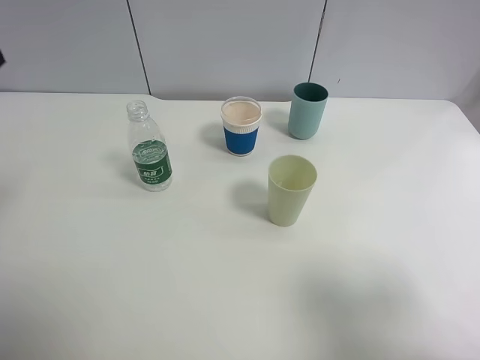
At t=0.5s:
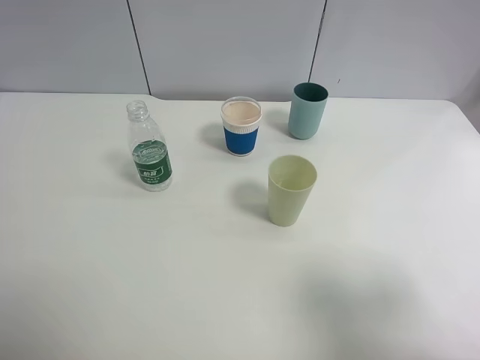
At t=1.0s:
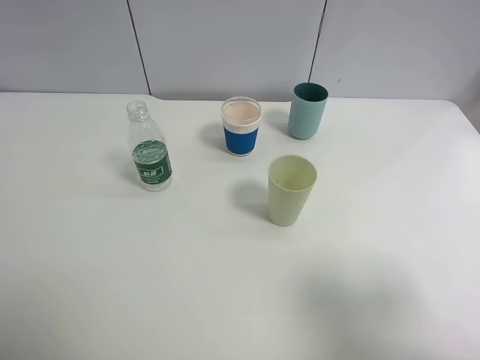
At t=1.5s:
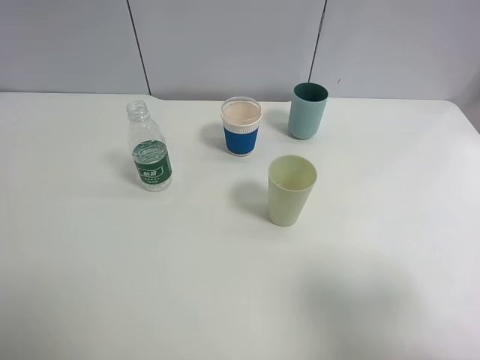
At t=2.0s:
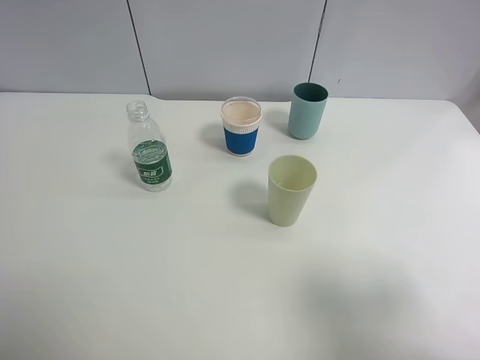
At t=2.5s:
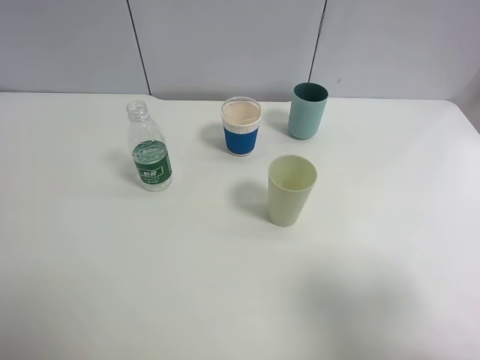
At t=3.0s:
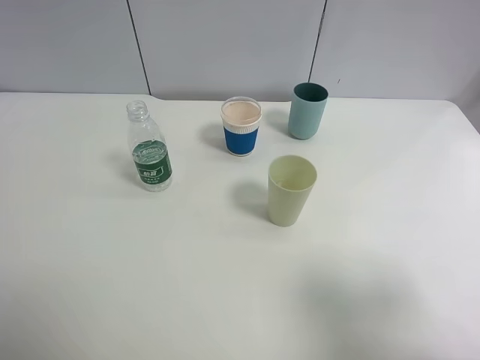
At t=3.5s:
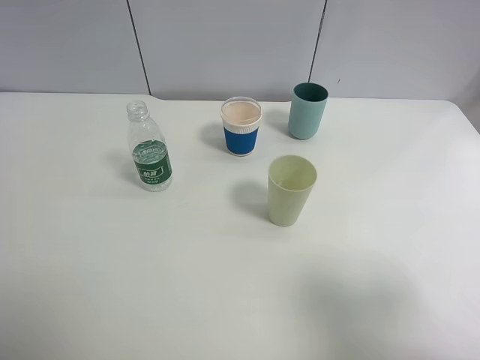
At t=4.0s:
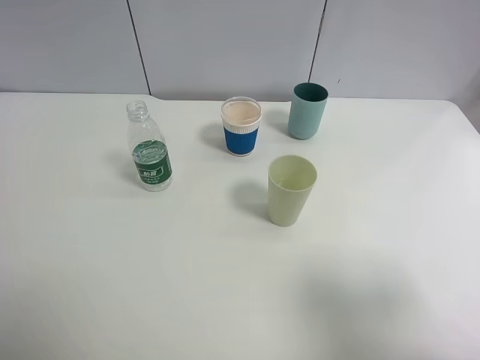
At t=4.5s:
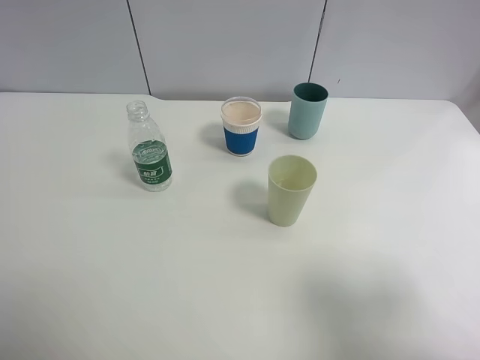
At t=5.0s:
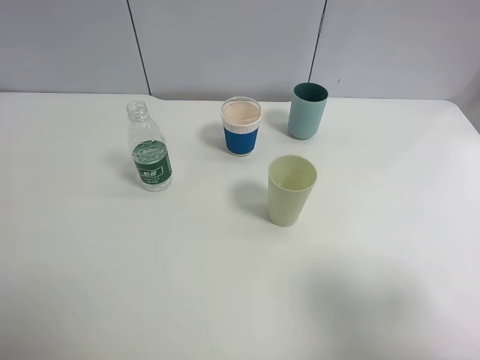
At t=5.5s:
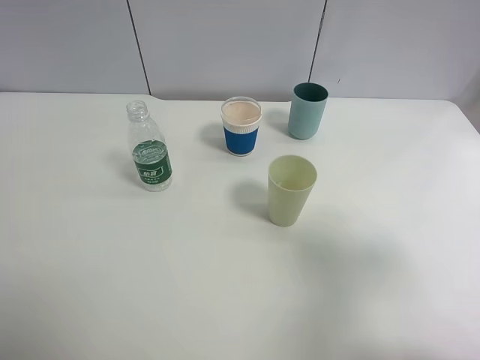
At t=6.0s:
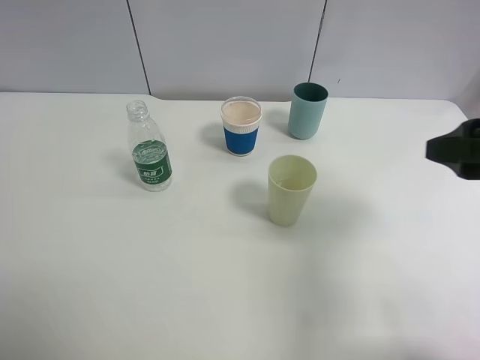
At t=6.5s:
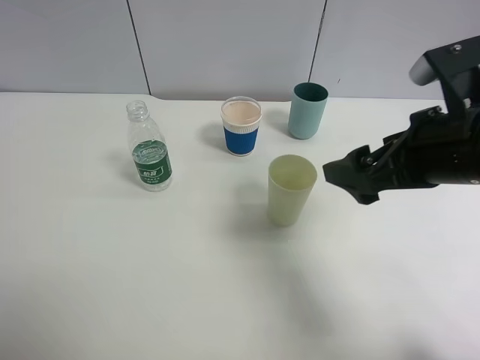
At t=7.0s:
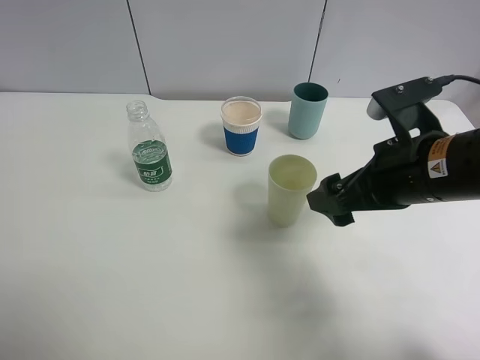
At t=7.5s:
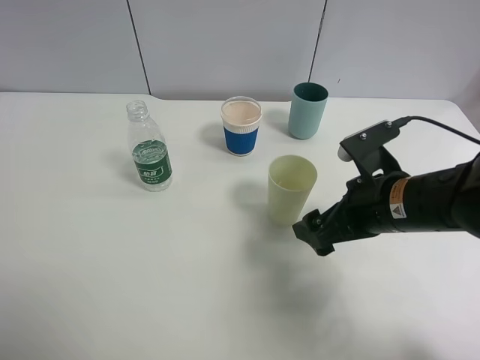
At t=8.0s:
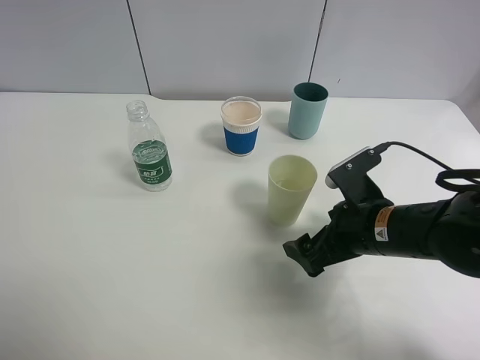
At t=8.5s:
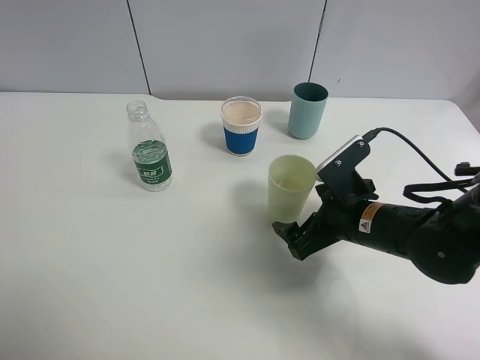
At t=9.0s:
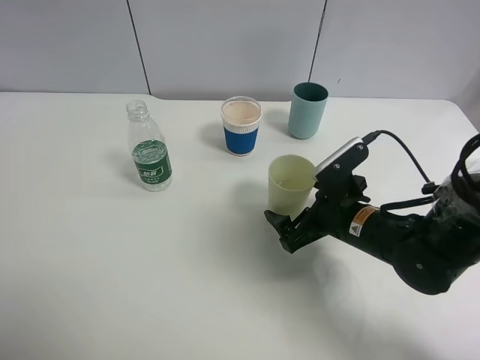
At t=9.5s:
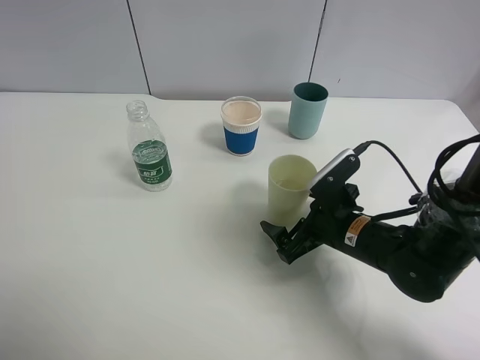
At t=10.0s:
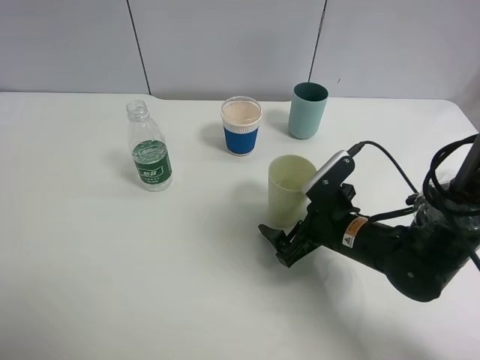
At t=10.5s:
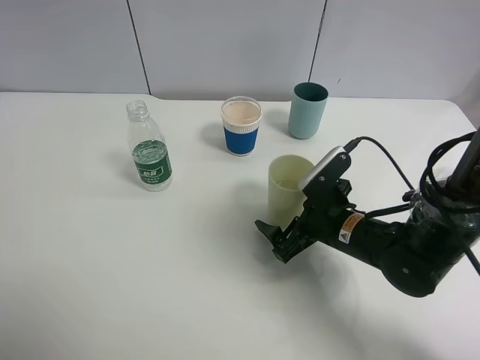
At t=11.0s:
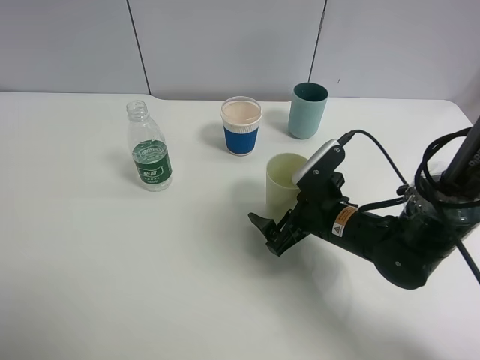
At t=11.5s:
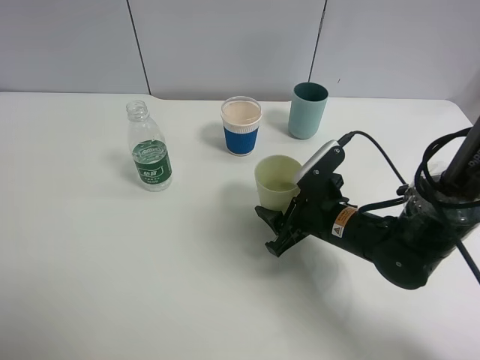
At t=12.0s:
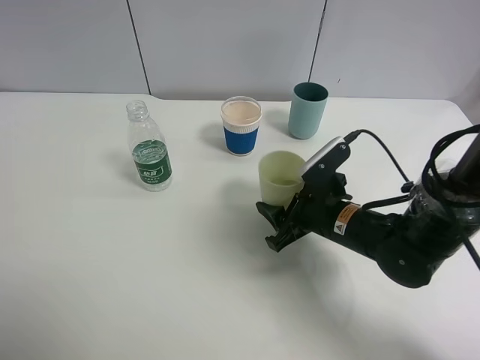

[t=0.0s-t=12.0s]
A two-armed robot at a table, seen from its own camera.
Task of the whole recording: use a clamp to hold the bottle of the drink, pour the beverage into a random cup, then clamp the cup containing the drink and pour the drink into another random cup.
t=2.0s to t=4.0s: The two grippers keep their place.
t=4.0s to t=6.0s: The right gripper goes roughly 15 cm forward.
t=6.0s to t=8.0s: The right gripper goes some 20 cm downward and to the left.
t=8.0s to t=10.0s: The right gripper goes roughly 5 cm downward.
t=10.0s to t=12.0s: The right gripper closes.

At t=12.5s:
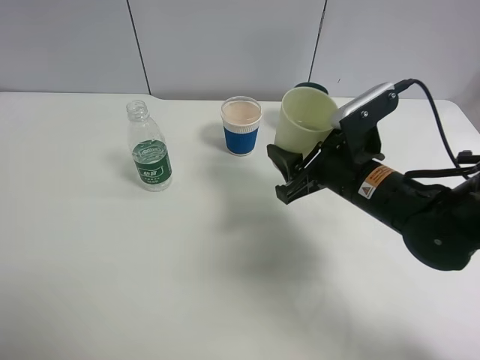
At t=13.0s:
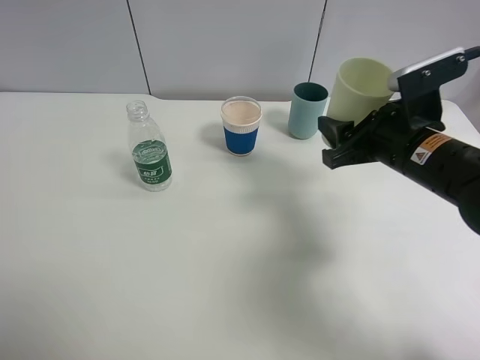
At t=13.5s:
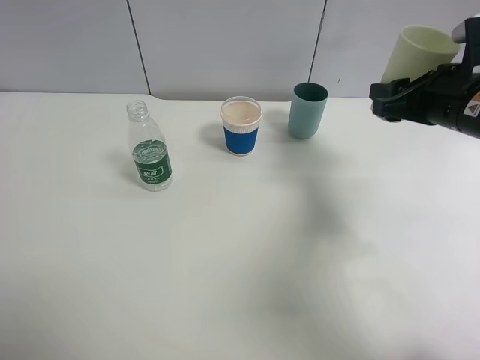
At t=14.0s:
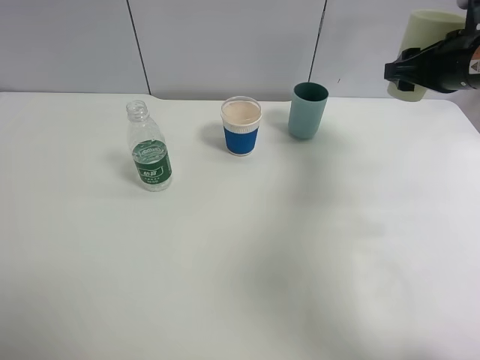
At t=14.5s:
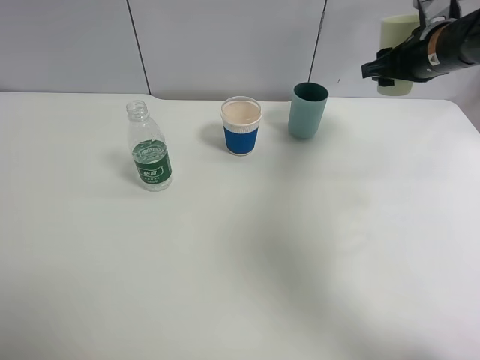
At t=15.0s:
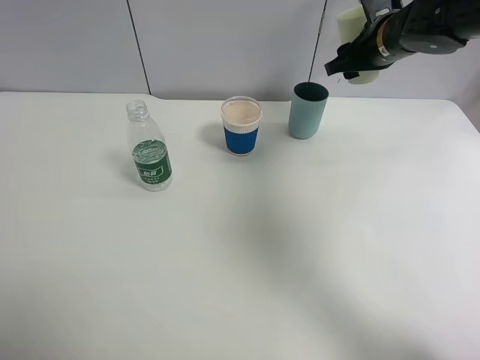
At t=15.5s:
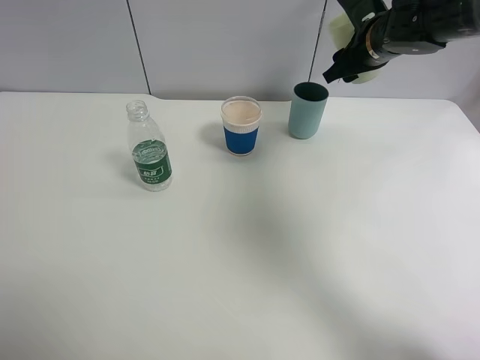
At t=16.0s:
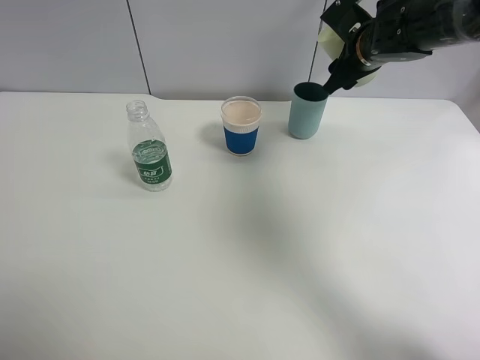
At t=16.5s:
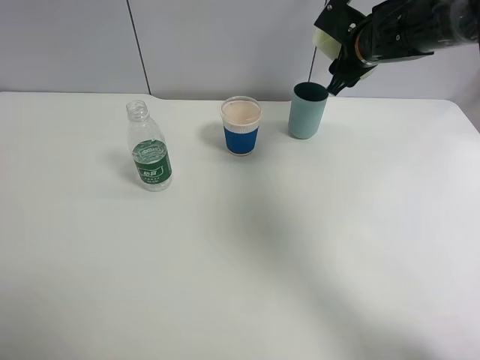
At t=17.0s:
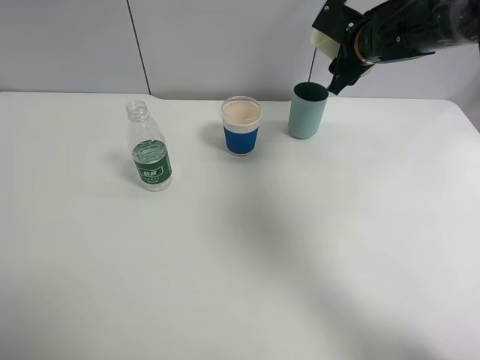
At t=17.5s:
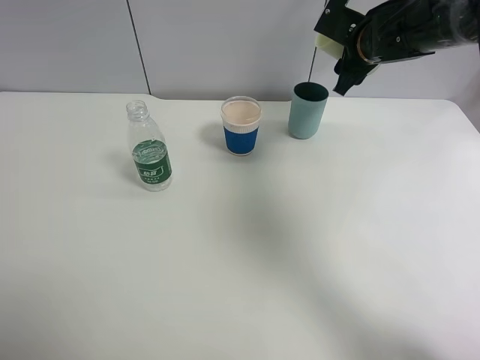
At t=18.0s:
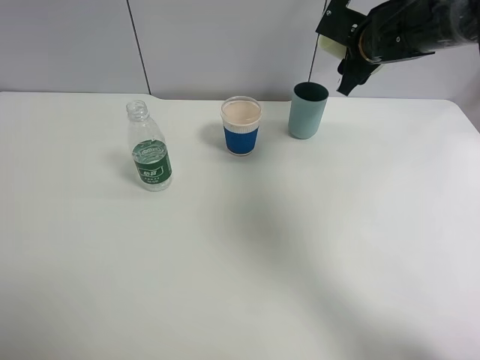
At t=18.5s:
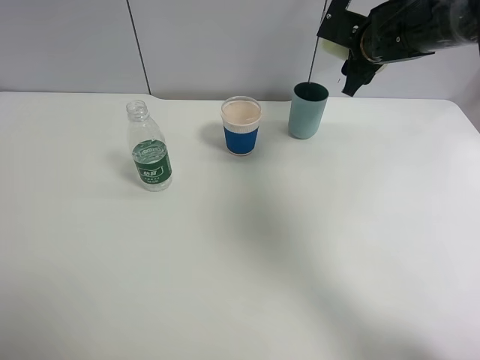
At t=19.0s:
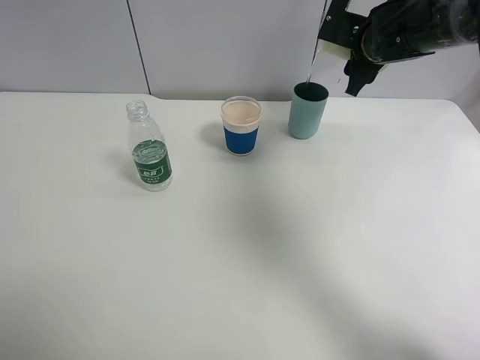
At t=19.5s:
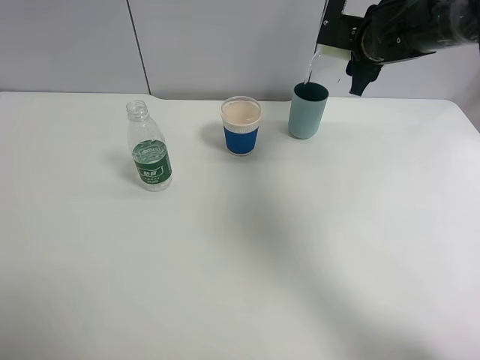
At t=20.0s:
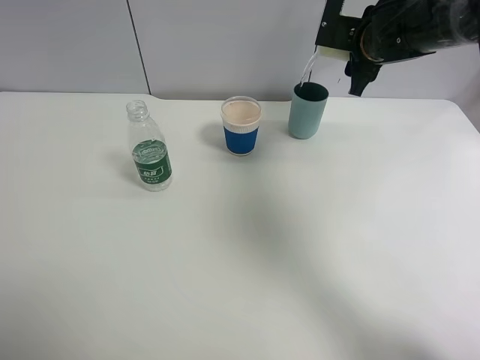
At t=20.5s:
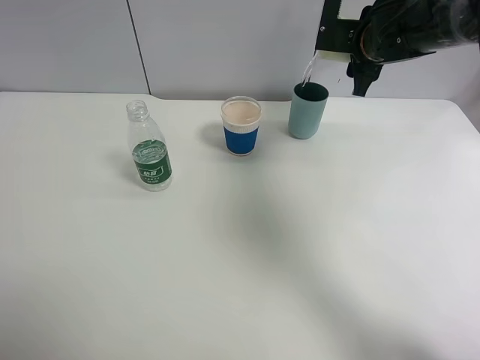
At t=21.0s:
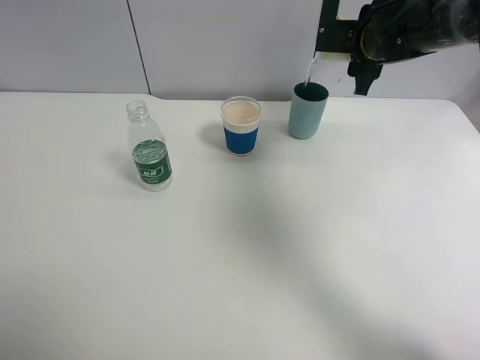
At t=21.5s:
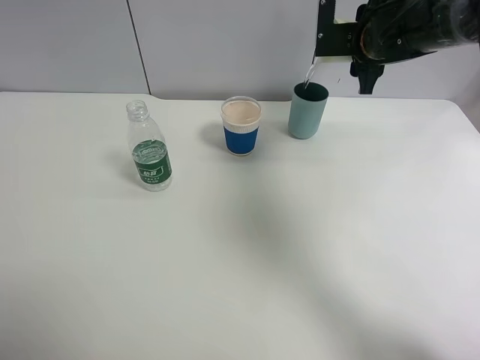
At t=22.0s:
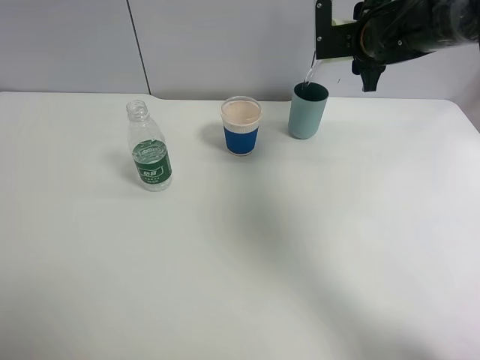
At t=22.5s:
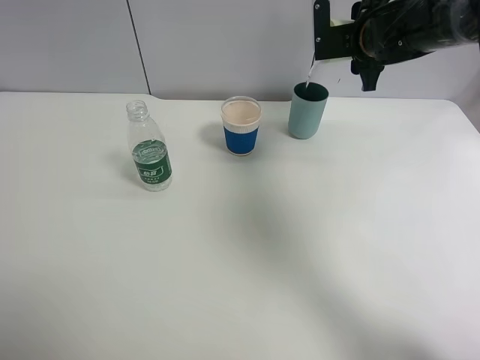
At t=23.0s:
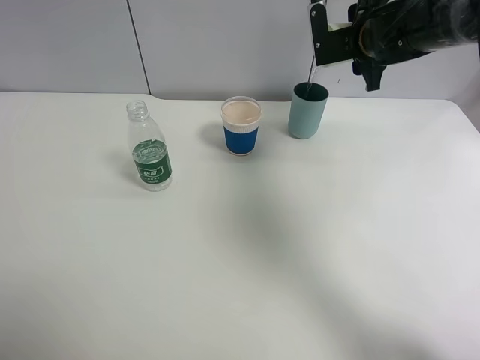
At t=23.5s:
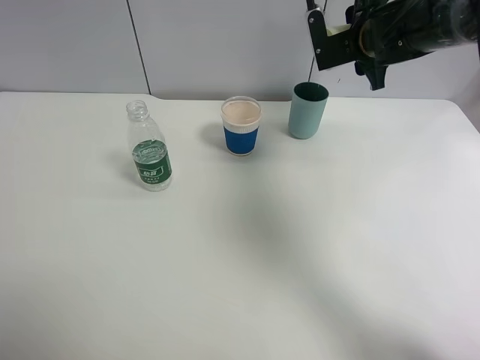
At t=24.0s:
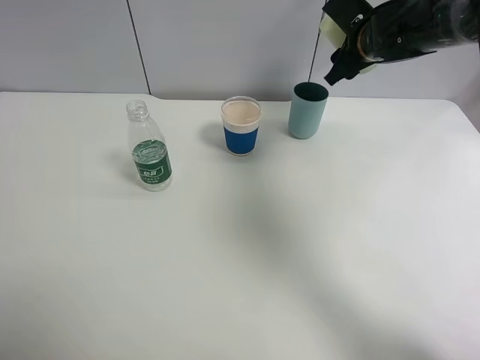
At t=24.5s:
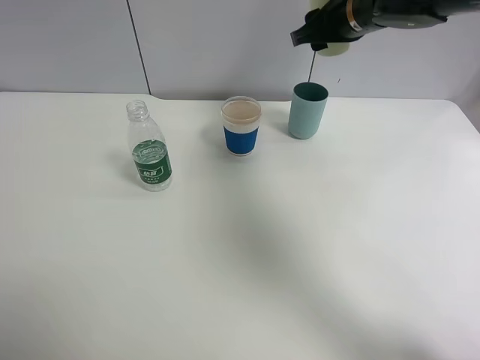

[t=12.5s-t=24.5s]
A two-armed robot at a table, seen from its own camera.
Task of the whole recording: use a clamp to hold the bottle of the drink, pour the beverage into a random cup, then clamp the cup containing the drink and pour the drink into another random cup.
Step, t=12.5s to t=24.0s: Pour water into the blue plastic cup with right gripper.
t=12.5s to t=14.5s: The right gripper travels forward, to the right and upward by about 20 cm.
t=14.5s to t=16.5s: The right gripper moves to the left, about 5 cm.
t=16.5s to t=18.5s: The grippers move only a little.
t=18.5s to t=20.5s: The grippers move only a little.
t=20.5s to t=22.5s: The grippers stay close to where they were, moving slightly.
t=22.5s to t=24.5s: The right gripper travels upward and to the left by approximately 10 cm.

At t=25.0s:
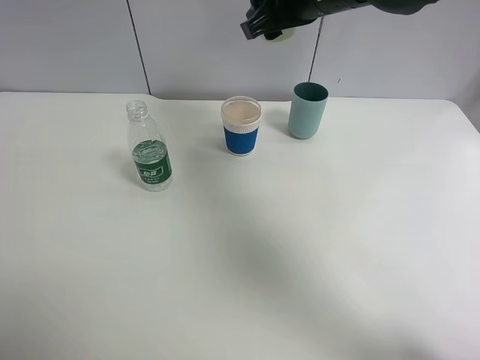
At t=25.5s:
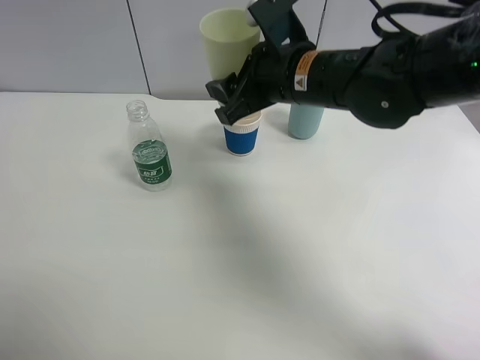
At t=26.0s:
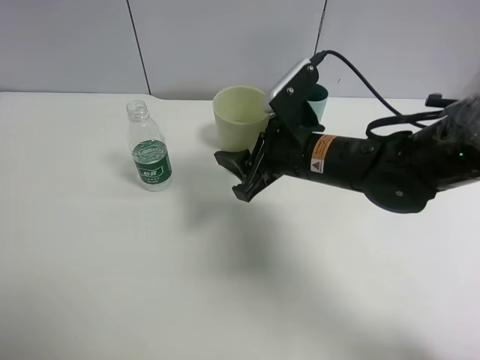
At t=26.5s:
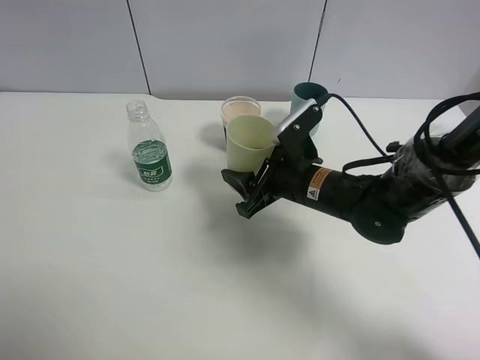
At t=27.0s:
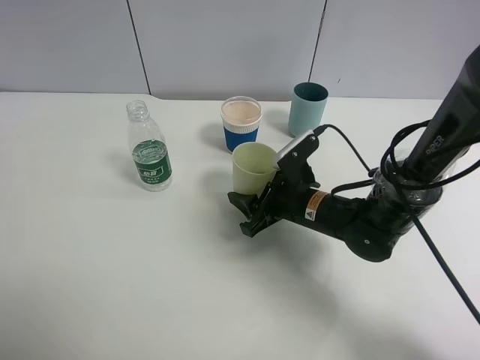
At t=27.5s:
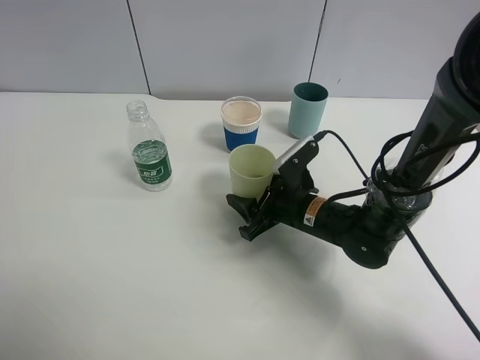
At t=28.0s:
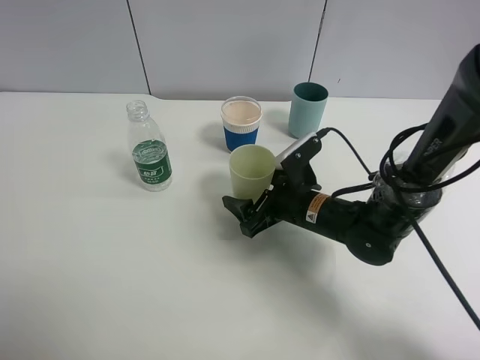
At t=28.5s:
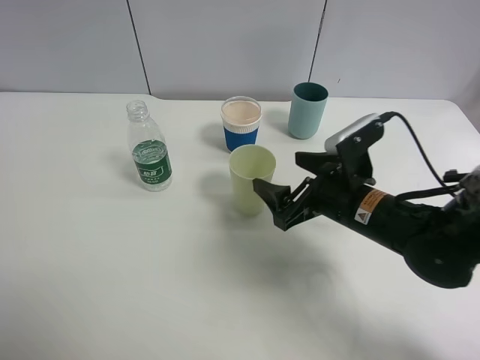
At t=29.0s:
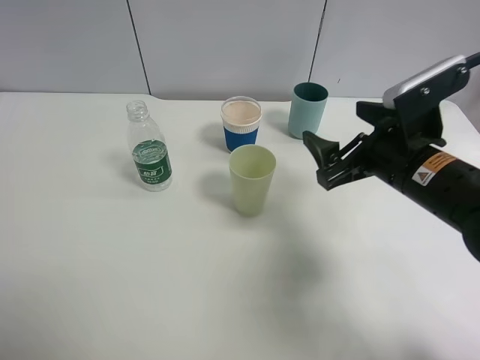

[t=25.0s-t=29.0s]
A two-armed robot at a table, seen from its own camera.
Task of the whole recording: use a clamp to hold the bottle of the drink, pour the beverage into a random cup, then clamp the cup containing the drink and pour the drink into another random cup.
Step, t=25.0s to t=28.0s: Place the green plastic cup on the table with right gripper.
t=25.0s to t=27.0s: The right gripper shifts approximately 25 cm downward.
t=27.0s to t=29.0s: The right gripper shifts about 15 cm upward and to the right, and opens up.
